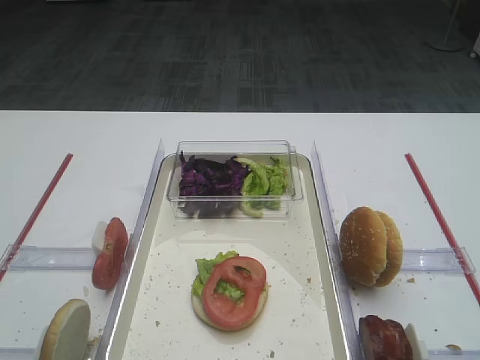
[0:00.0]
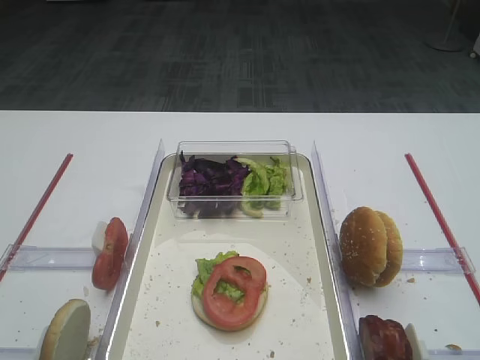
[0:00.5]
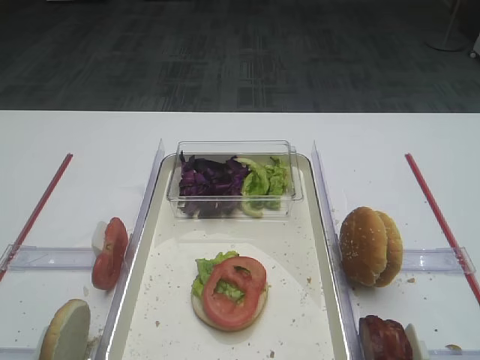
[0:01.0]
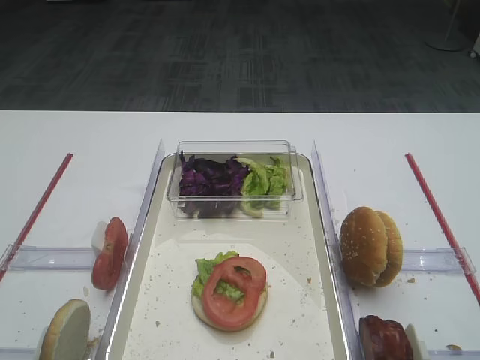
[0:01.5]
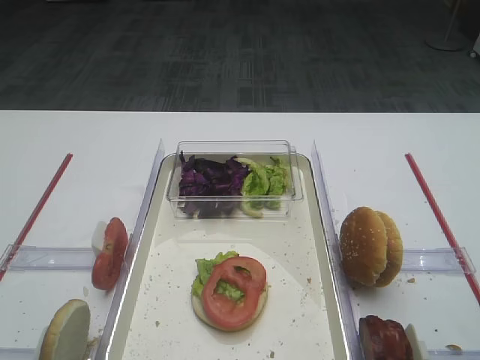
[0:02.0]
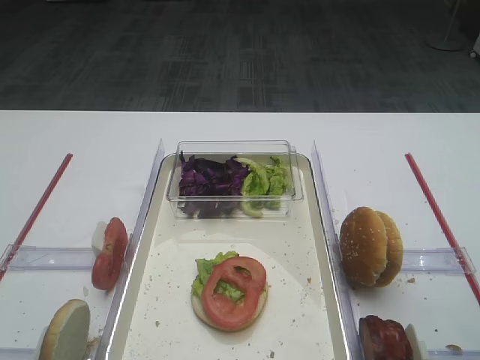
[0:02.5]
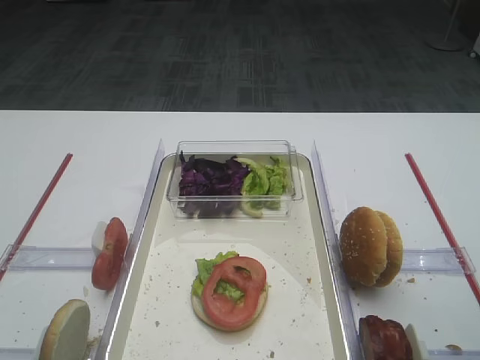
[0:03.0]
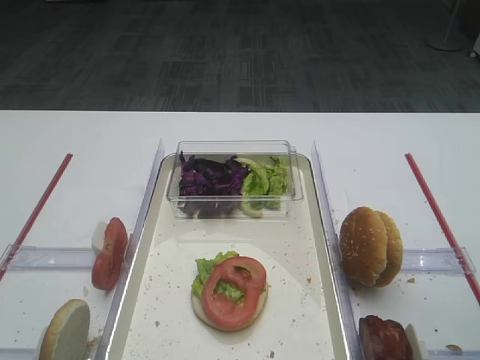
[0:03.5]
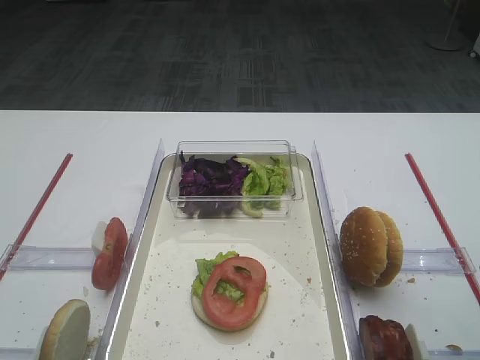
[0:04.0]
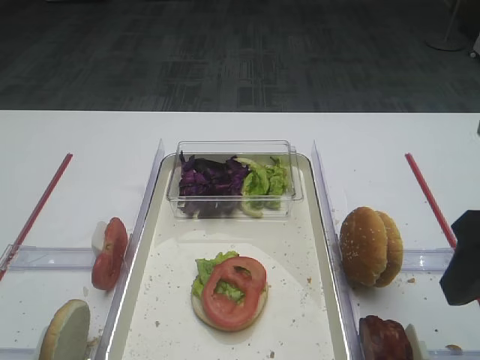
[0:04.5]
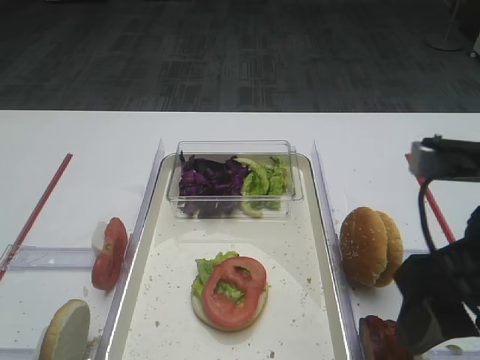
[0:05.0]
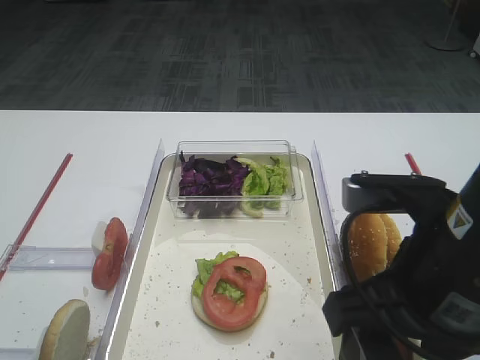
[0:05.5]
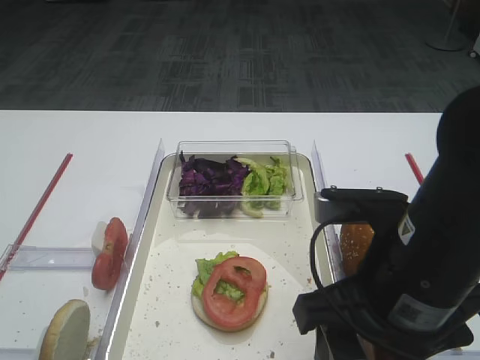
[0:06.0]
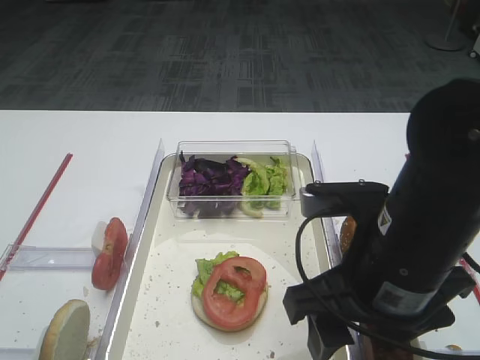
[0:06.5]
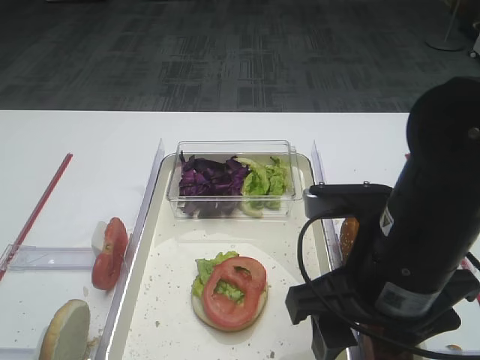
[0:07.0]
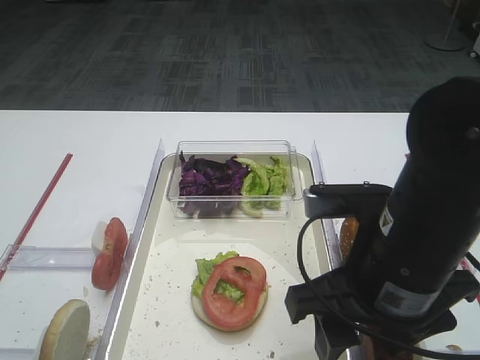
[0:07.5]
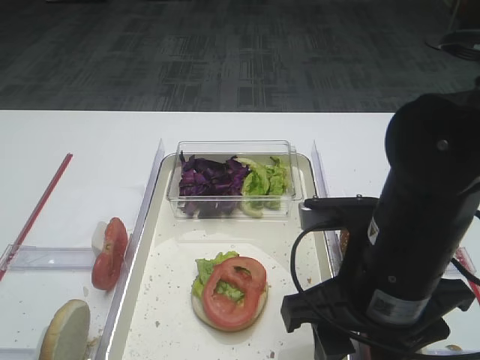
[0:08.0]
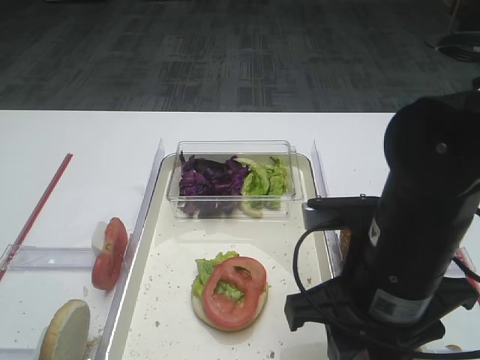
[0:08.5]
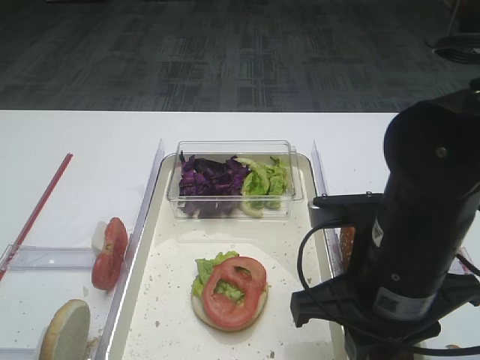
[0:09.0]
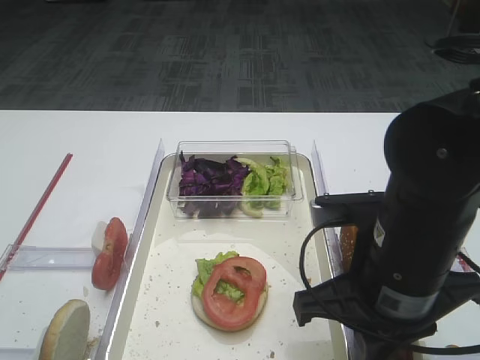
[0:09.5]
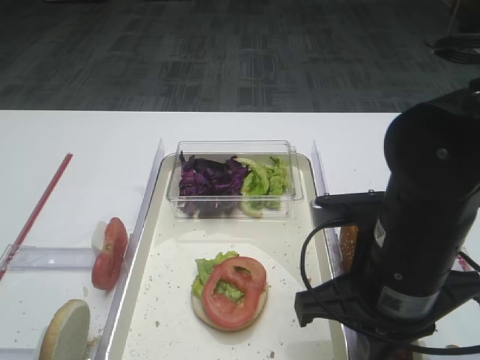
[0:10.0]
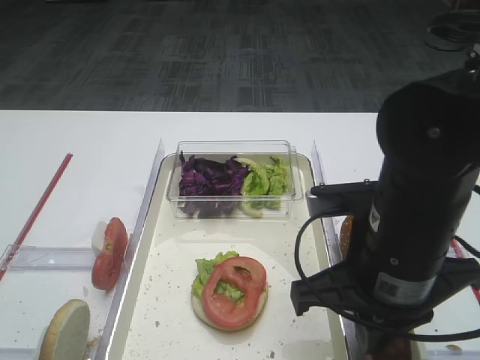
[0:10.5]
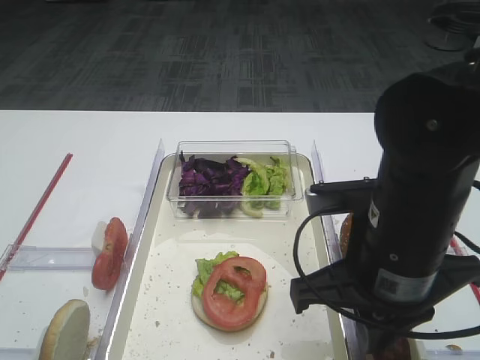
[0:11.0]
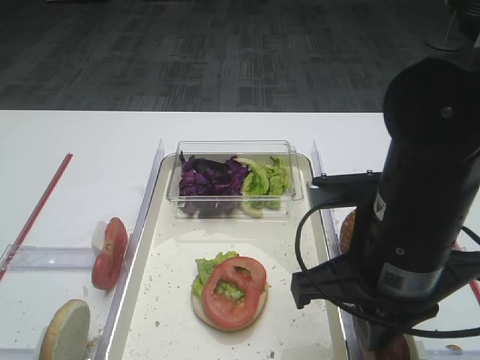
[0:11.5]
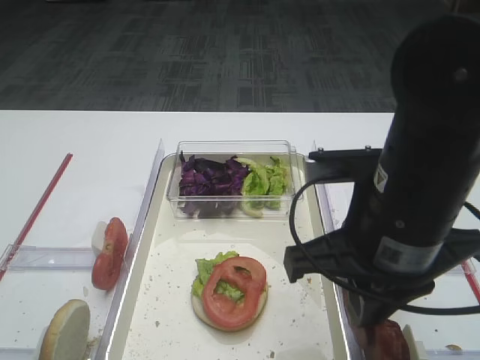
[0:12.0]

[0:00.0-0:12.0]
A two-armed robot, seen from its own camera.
0:04.0 to 0:06.0: The right gripper is displaced to the left and downward by roughly 15 cm.
0:06.0 to 0:08.0: There are only small adjustments of the grippers.
0:08.0 to 0:10.0: The right gripper closes up.
0:10.0 to 0:12.0: The grippers move only a little.

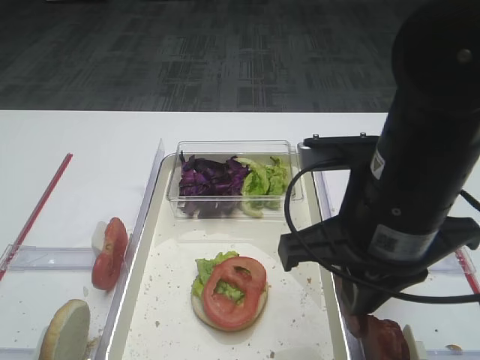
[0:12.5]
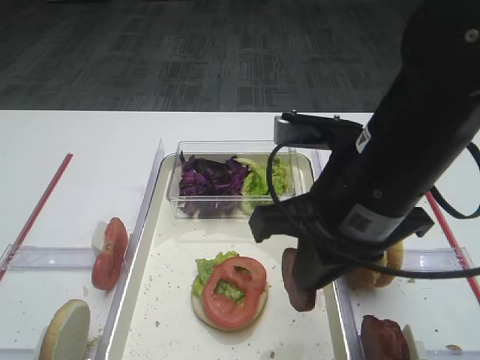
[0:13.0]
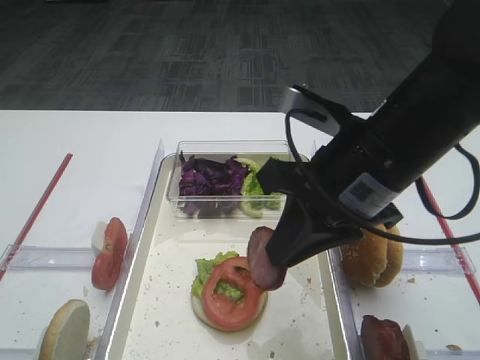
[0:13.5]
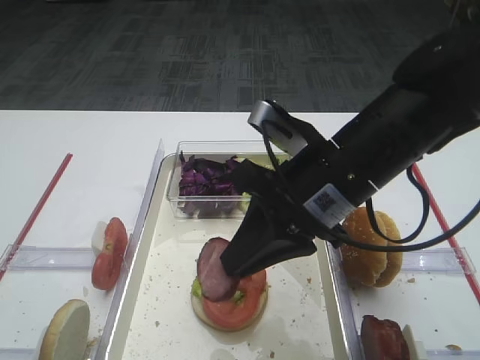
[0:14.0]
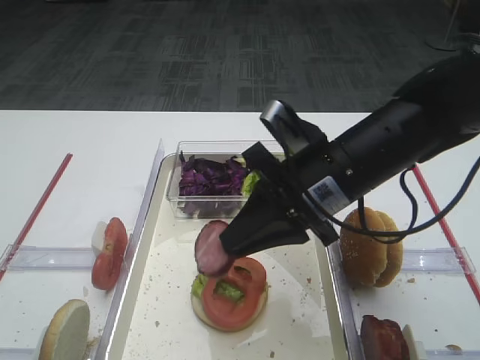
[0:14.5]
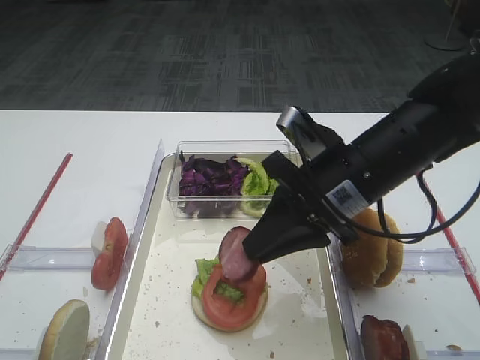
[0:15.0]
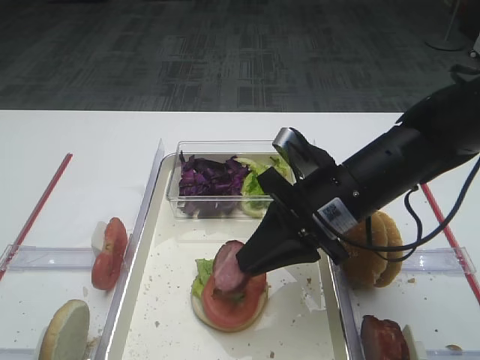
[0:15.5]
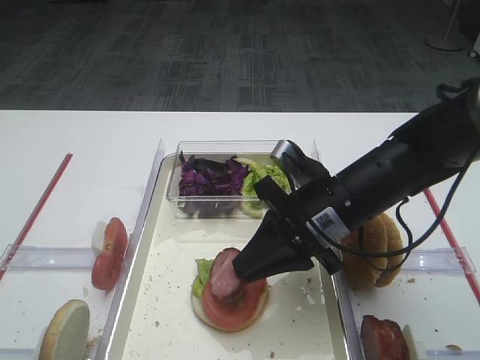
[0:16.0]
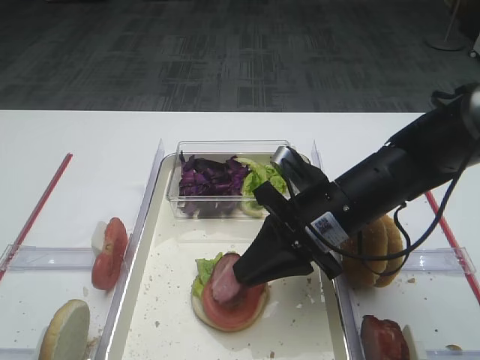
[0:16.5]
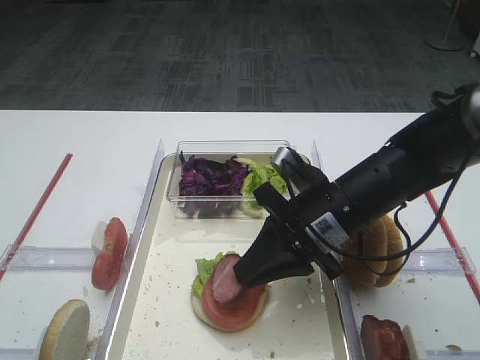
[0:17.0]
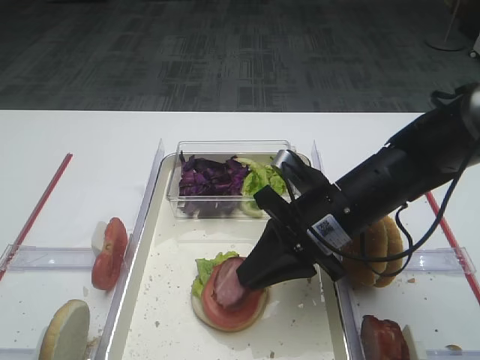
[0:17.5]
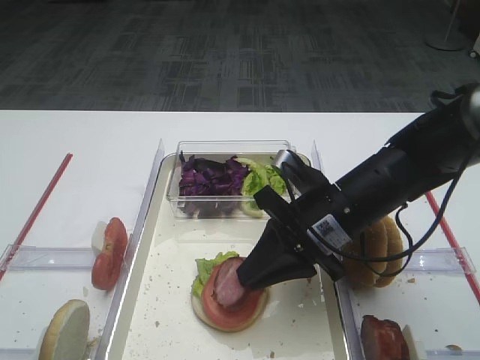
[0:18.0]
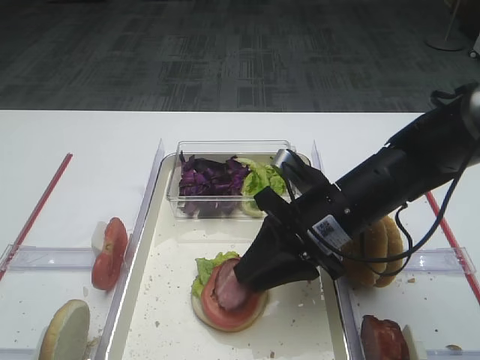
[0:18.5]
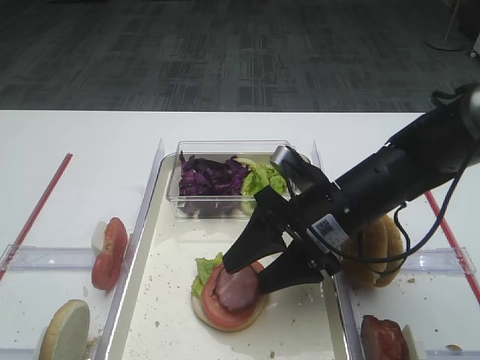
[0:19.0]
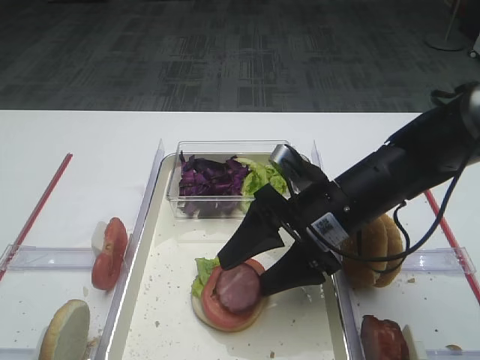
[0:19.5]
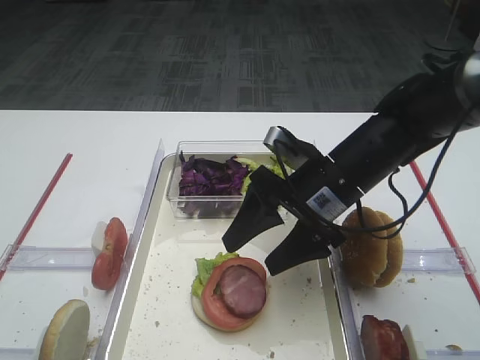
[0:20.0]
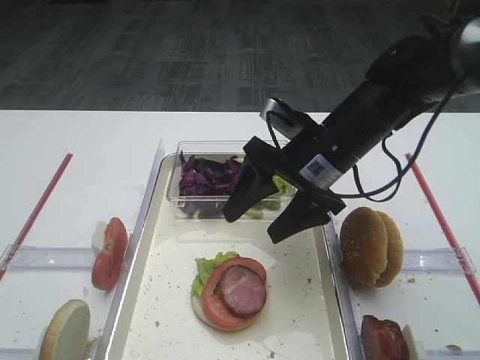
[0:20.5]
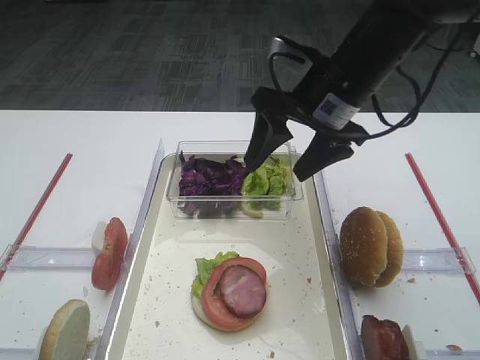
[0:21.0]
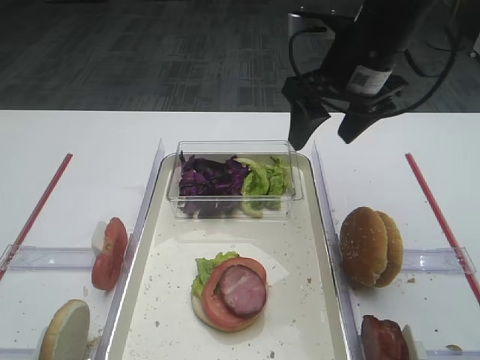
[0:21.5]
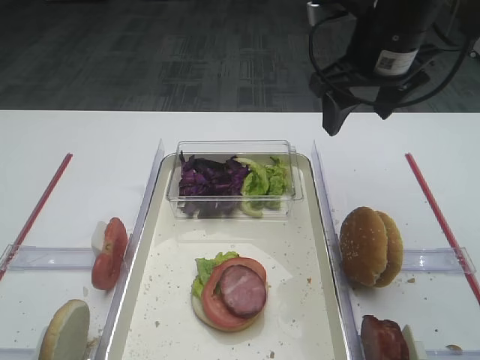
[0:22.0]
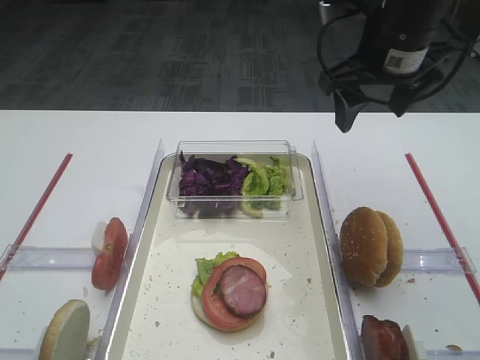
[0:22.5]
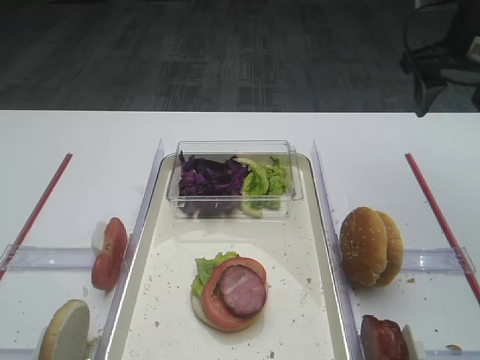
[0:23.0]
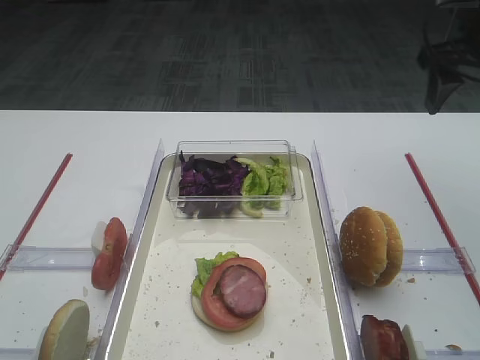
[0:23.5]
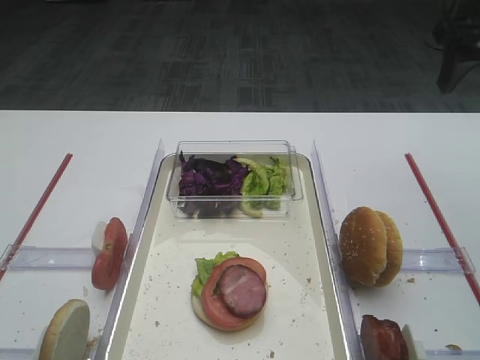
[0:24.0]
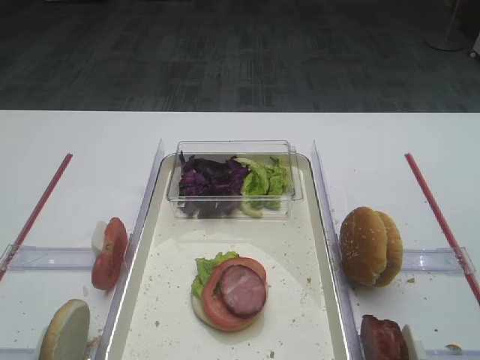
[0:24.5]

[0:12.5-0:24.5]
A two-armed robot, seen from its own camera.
Step, 0:13.0 to 0:20.5: Place the cutlet on the tomato slice with the right gripper.
0:12.5 to 0:14.5: The right gripper travels forward by approximately 10 cm.
0:14.5 to 0:16.5: The right gripper goes some 5 cm downward.
0:16.5 to 0:18.5: Both grippers stay put.
0:18.5 to 0:20.5: The right gripper changes place by approximately 5 cm, and opens its fingers.
0:20.5 to 0:22.5: The right gripper goes roughly 15 cm upward and to the right.
0:22.5 to 0:24.5: The right gripper goes about 20 cm backward, to the right and upward.

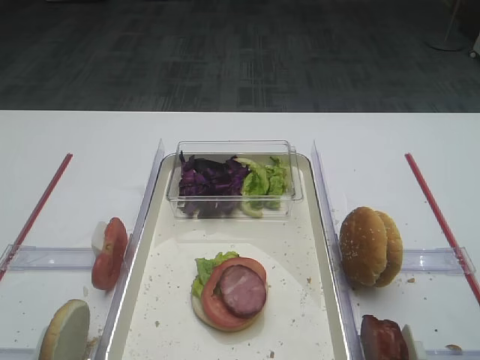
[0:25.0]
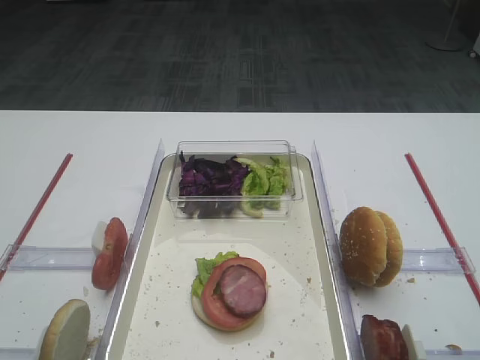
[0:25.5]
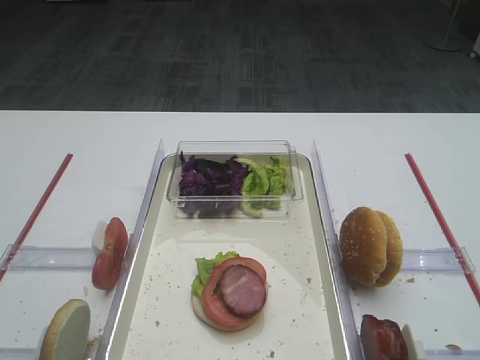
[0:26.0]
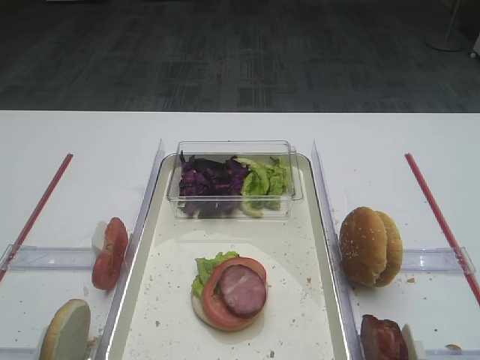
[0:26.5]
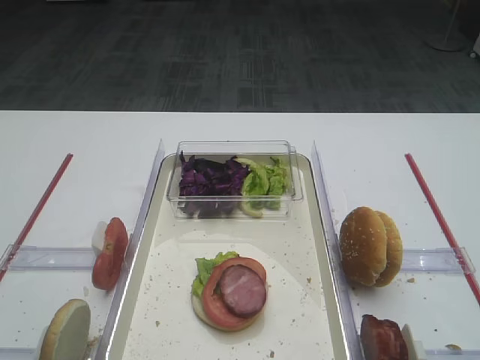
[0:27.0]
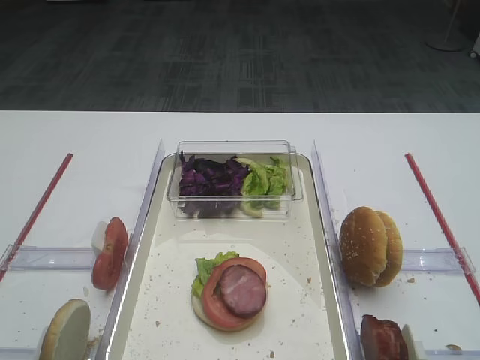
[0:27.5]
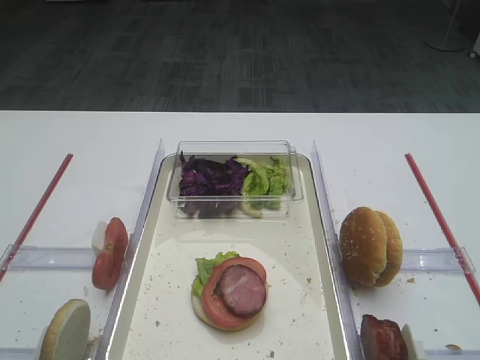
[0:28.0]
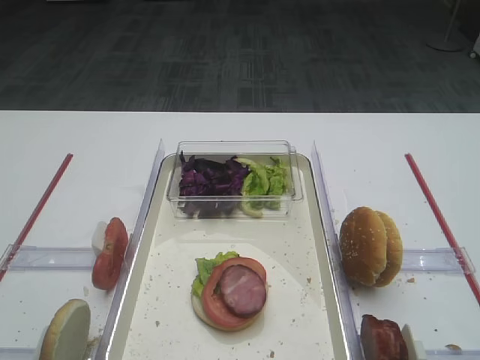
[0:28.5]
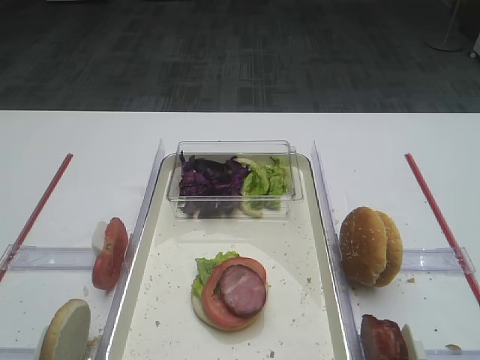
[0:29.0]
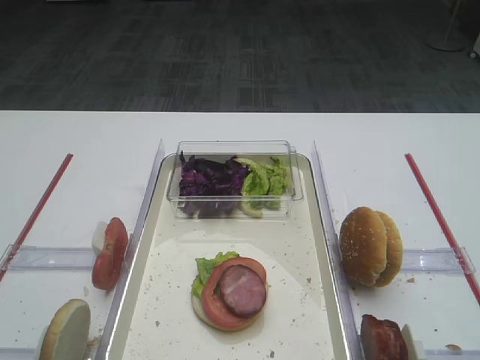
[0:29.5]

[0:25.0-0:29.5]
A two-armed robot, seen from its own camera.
0:27.0 to 0:29.5: The two grippers keep their place.
